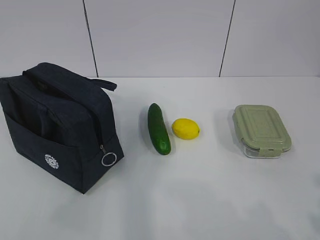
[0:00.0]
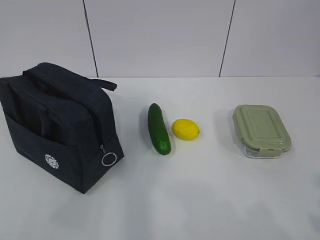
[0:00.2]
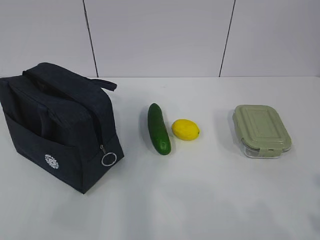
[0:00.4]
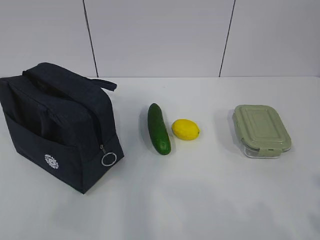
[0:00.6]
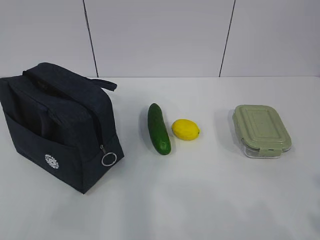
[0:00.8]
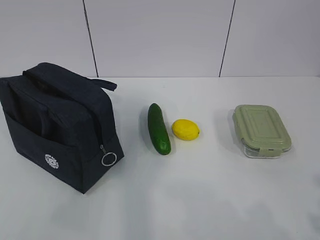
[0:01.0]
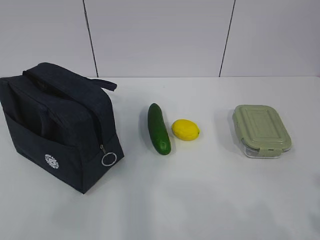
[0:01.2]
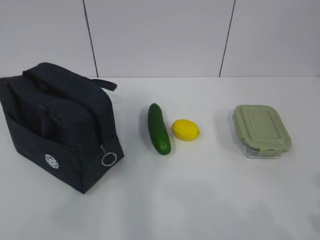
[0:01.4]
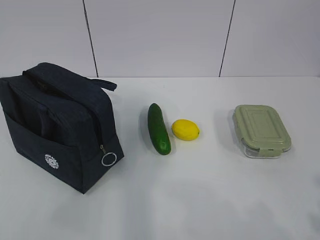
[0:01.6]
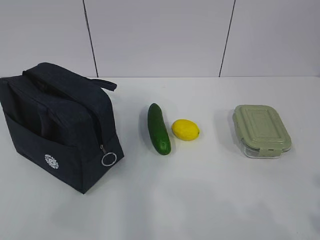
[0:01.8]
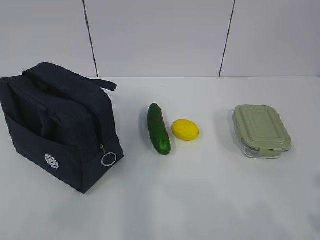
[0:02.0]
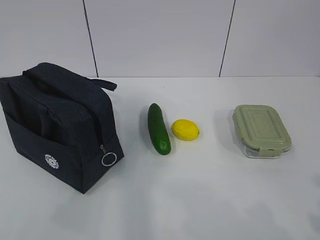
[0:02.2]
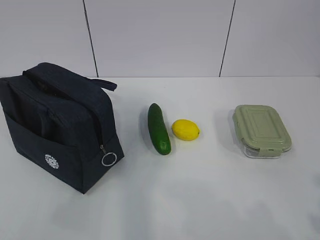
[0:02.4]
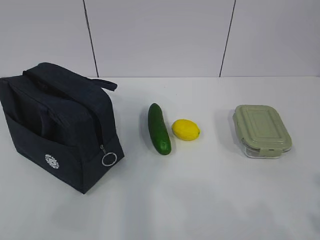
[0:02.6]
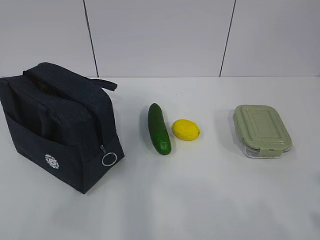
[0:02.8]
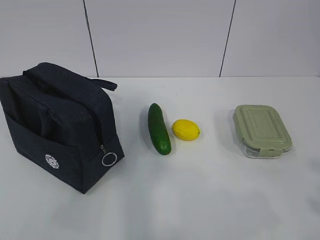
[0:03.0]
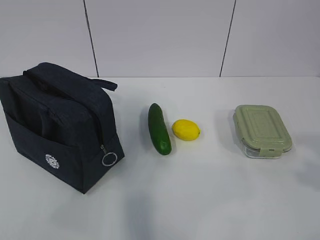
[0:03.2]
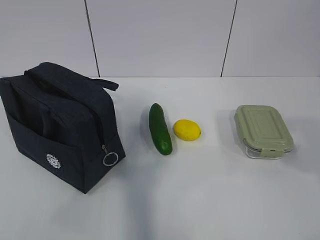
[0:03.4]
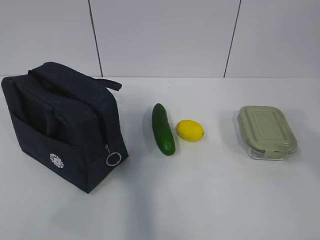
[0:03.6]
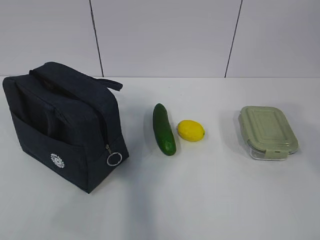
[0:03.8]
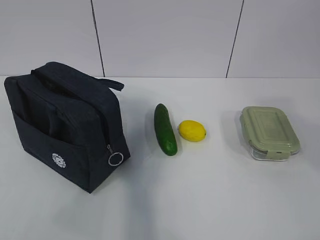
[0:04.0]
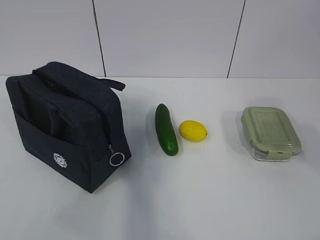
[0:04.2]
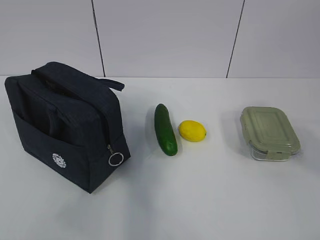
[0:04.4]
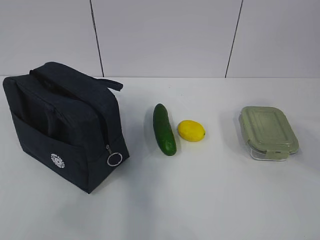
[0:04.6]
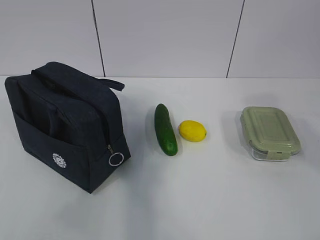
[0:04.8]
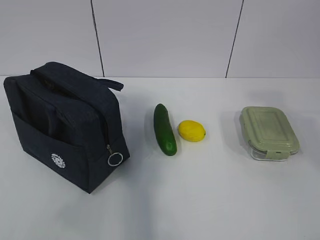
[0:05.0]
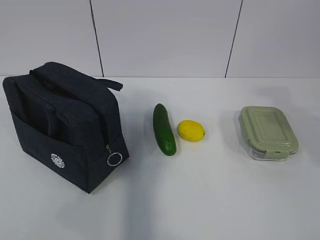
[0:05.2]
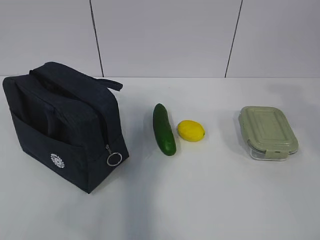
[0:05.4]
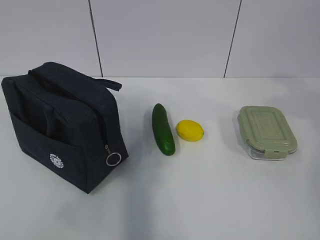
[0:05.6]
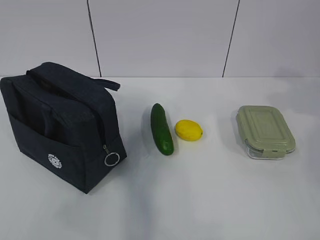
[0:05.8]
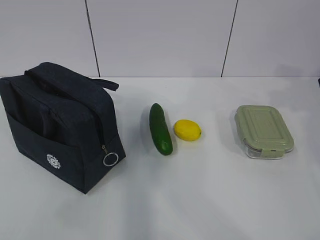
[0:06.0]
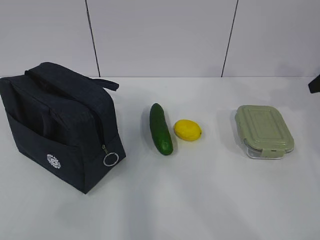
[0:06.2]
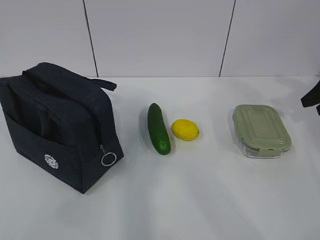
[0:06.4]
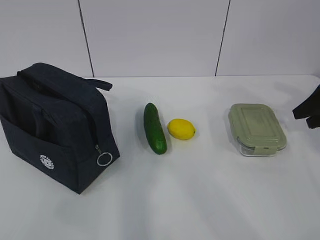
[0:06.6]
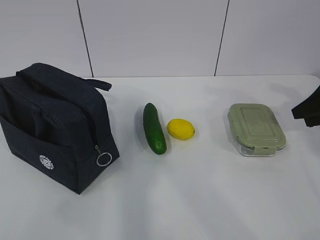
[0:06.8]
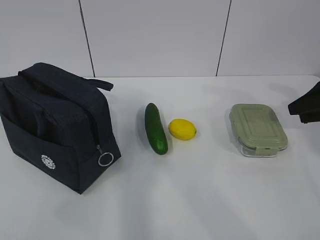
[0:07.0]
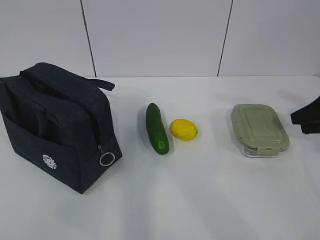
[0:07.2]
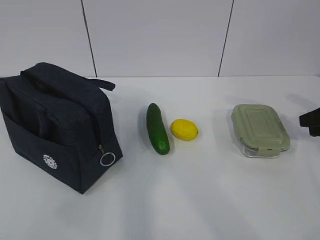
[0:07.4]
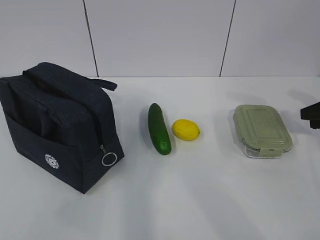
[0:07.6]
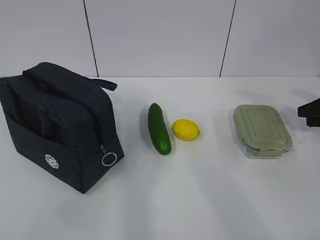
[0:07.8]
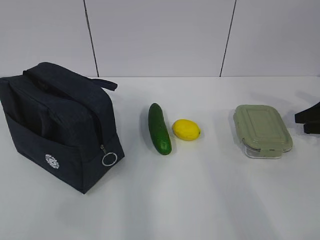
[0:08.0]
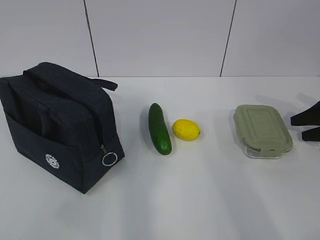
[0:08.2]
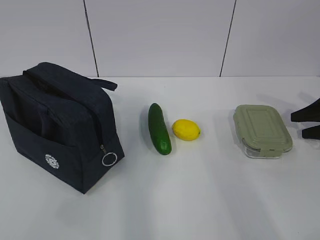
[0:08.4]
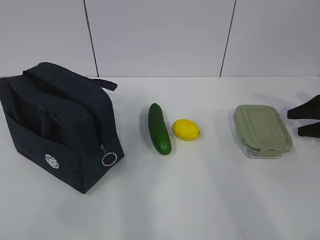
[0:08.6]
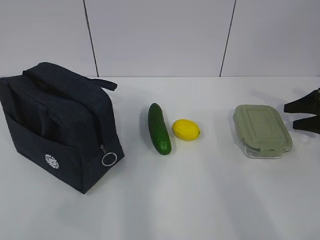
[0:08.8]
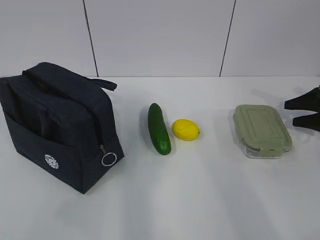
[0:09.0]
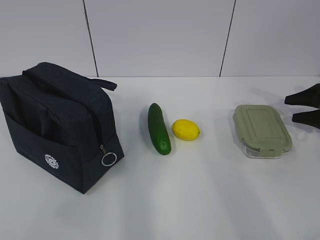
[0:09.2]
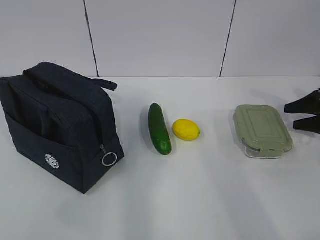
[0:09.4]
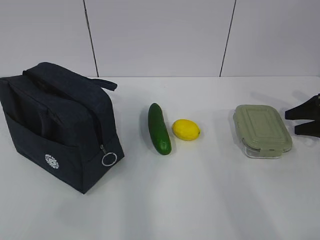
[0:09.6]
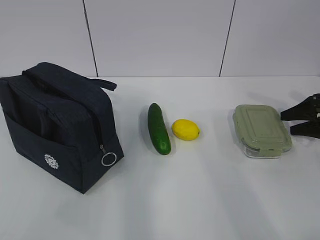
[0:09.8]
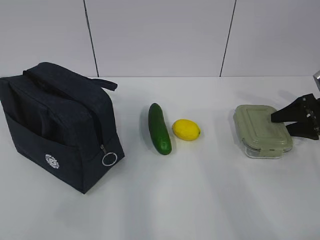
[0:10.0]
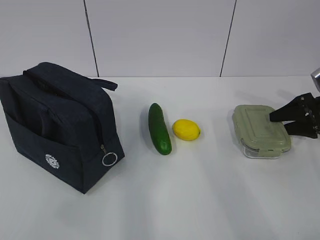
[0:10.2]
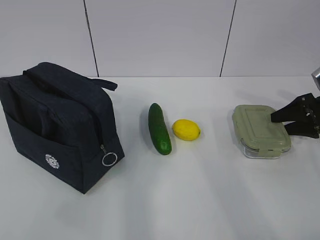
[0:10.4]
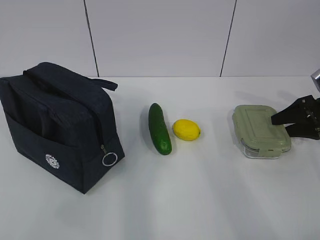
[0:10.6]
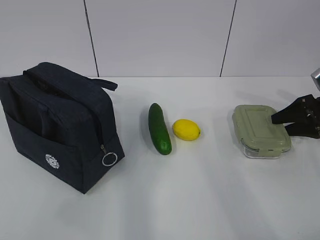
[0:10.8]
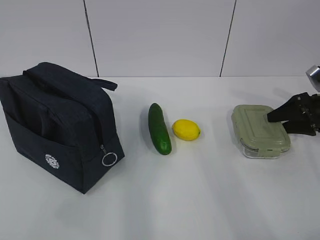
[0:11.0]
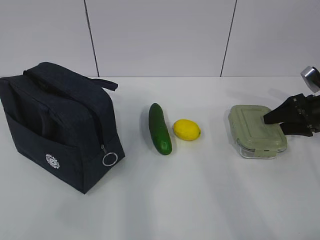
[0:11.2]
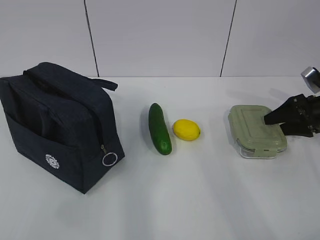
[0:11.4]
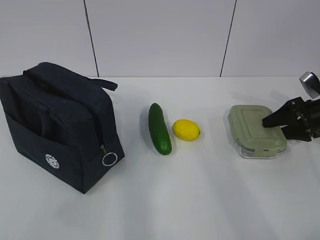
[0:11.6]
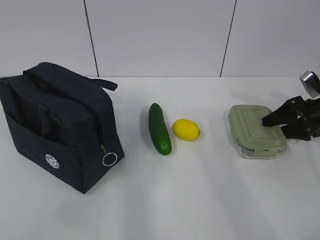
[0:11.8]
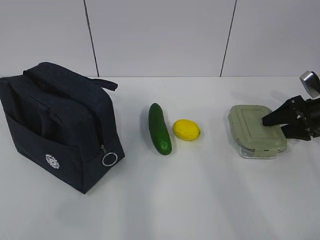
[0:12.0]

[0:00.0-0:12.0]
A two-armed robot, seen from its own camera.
0:03.0 to 0:04.4: The right gripper heads forward, to the left and upward, covering about 15 cm.
0:04.4 to 0:06.0: The right gripper moves forward and to the right, about 25 cm.
0:06.0 to 0:07.6: The right gripper goes roughly 10 cm downward.
0:07.6 to 0:09.0: The right gripper is displaced forward and downward by roughly 10 cm.
0:09.0 to 0:12.0: The grippers make only small movements.

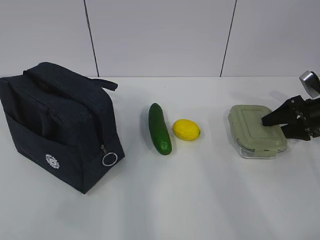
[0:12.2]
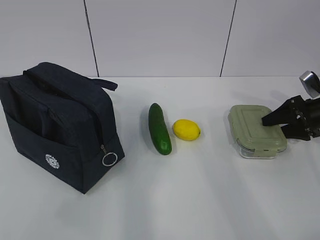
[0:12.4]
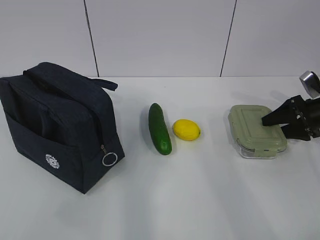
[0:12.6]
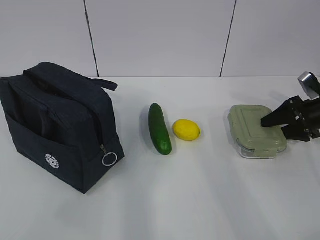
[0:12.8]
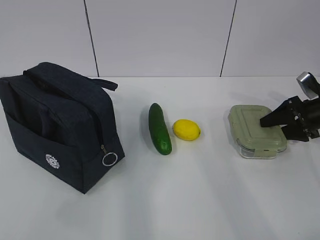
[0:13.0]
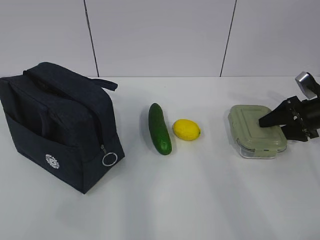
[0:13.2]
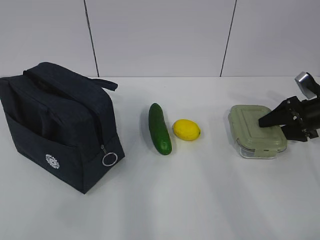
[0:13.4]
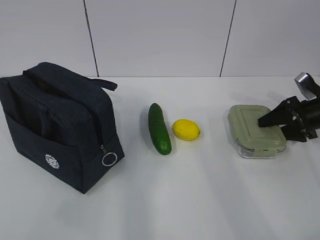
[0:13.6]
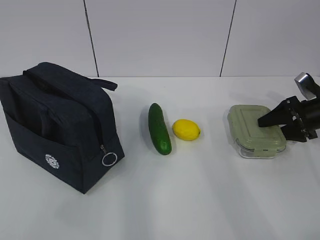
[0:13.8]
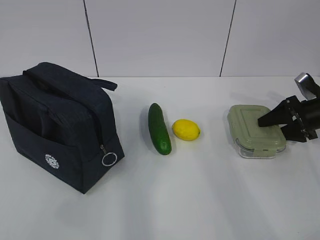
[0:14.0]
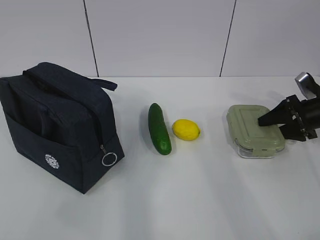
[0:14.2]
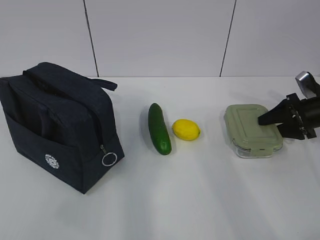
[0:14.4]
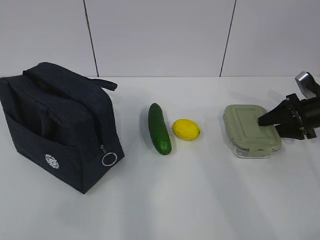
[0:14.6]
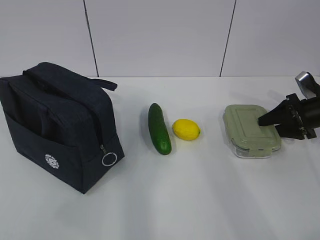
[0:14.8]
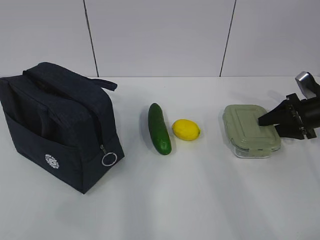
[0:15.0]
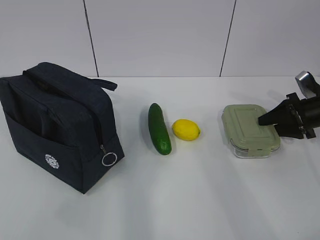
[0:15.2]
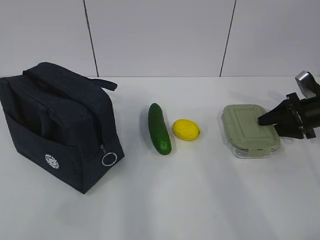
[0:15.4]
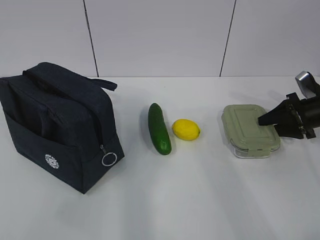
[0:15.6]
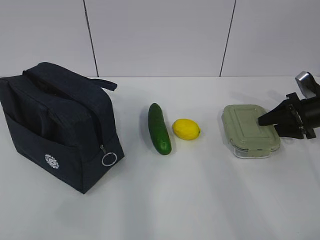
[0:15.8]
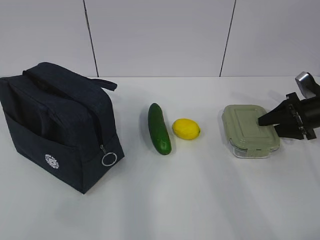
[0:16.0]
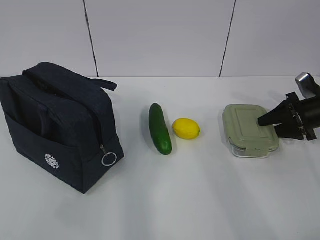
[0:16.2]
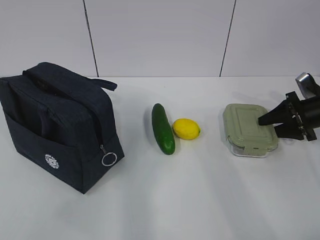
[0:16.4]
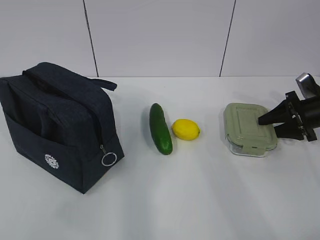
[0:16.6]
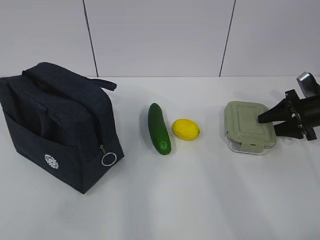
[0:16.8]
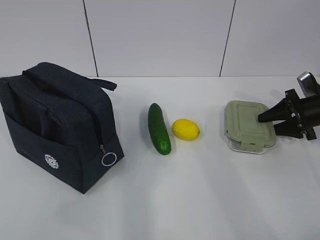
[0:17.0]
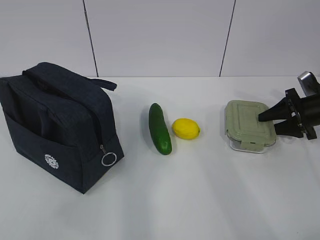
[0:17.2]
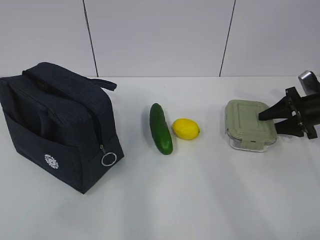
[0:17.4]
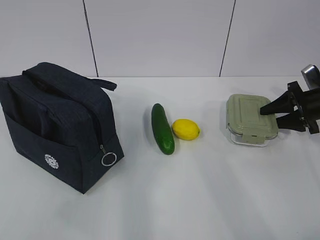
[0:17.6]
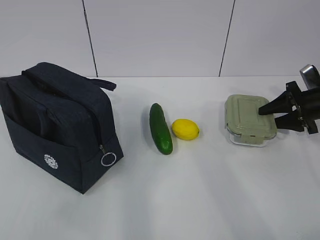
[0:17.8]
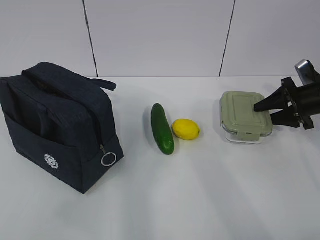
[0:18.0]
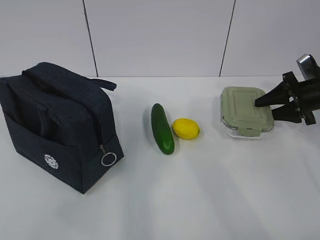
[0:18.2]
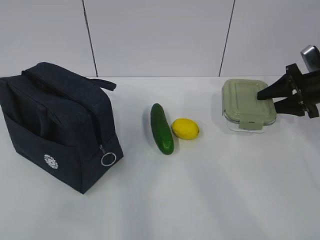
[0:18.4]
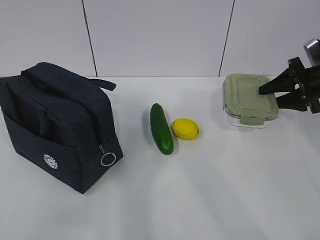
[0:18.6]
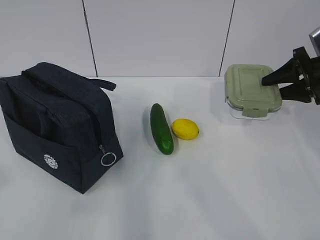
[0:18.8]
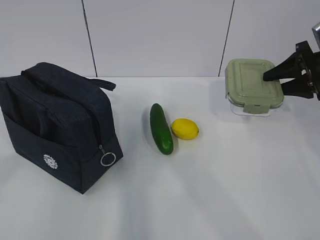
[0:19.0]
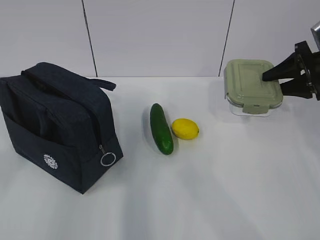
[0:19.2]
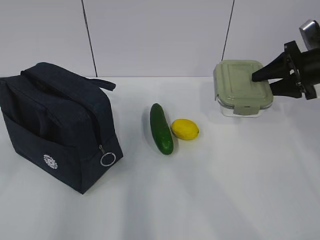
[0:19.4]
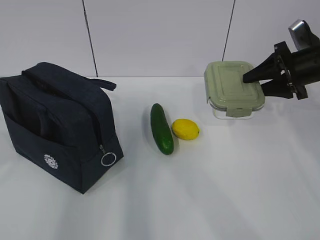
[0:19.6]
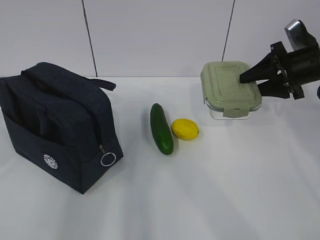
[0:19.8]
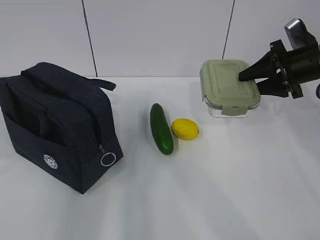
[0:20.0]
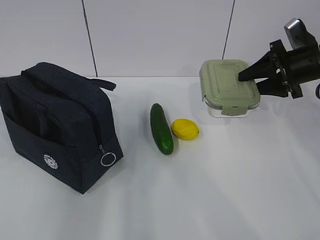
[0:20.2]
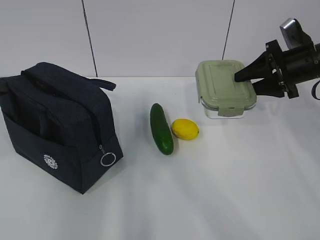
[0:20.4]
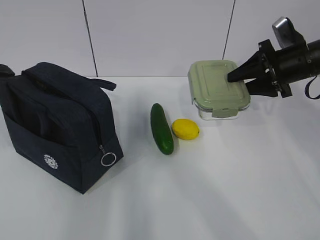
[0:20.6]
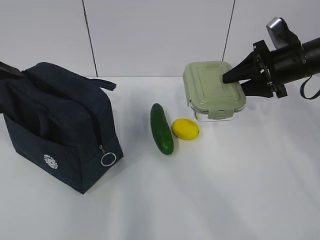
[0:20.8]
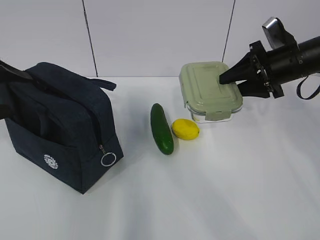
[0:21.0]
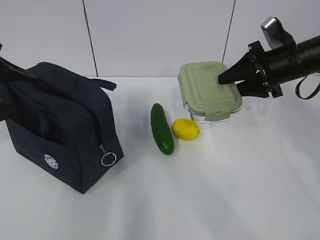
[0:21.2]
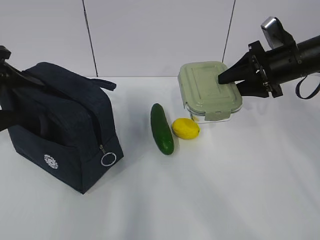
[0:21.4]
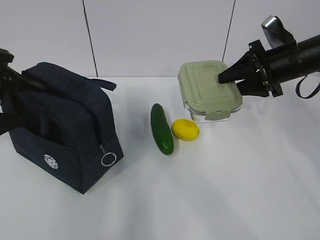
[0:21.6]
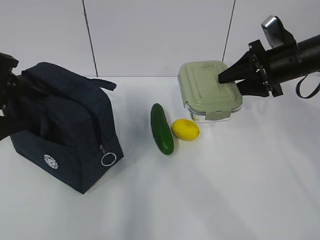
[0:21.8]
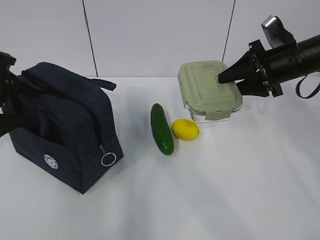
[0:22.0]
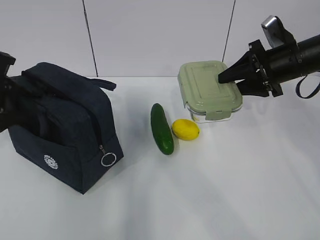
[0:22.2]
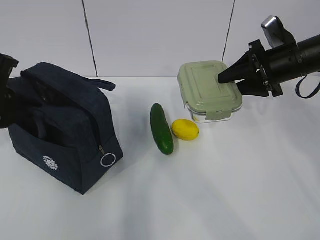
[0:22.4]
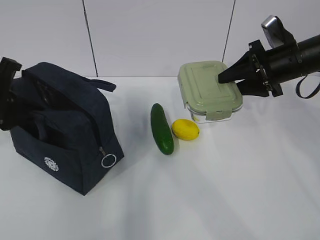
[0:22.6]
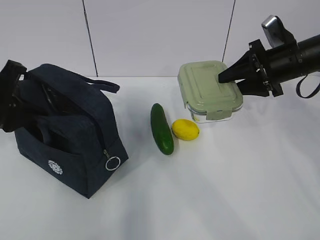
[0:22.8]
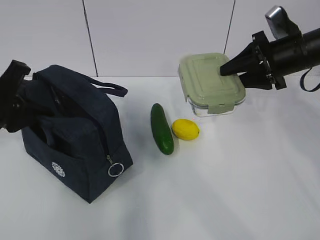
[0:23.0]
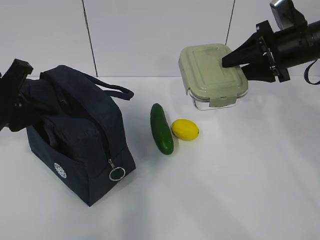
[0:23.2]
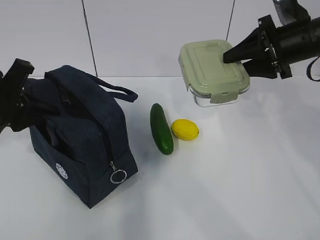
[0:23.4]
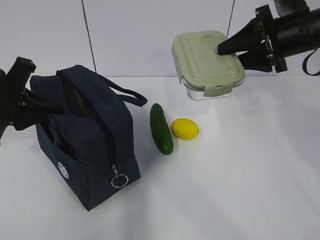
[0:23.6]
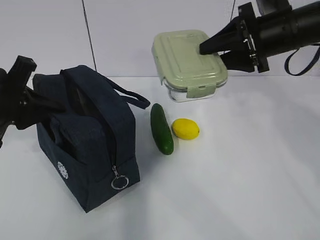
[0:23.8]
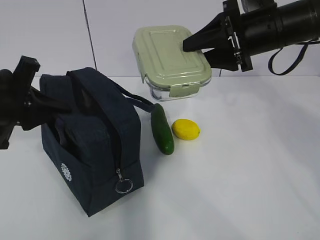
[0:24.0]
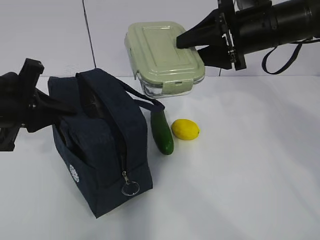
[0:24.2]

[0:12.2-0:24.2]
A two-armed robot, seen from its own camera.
Step, 0:14.2 to 0:20.8: Grab the lunch bag with your left hand.
0:12.2 to 0:15.2: Neither gripper changes place.
0:15.2 to 0:18.2: The grippers make only small movements.
0:18.2 to 0:19.8: The left gripper moves forward, approximately 15 cm, while the right gripper moves upward and to the left, roughly 10 cm.
0:19.8 to 0:21.2: The left gripper goes approximately 10 cm forward.
0:21.2 to 0:22.6: The left gripper closes up.
0:22.6 to 0:24.2: The right gripper goes approximately 10 cm to the left and upward.
